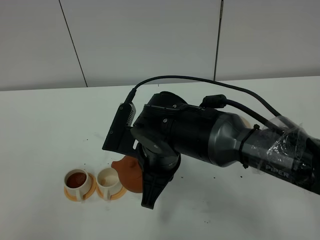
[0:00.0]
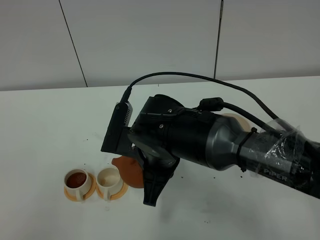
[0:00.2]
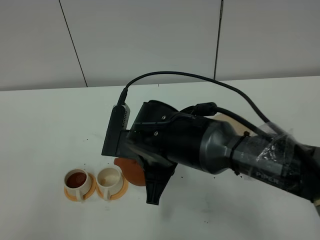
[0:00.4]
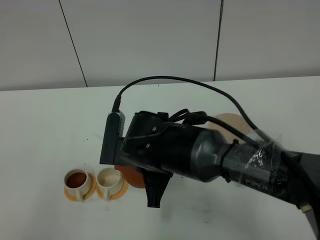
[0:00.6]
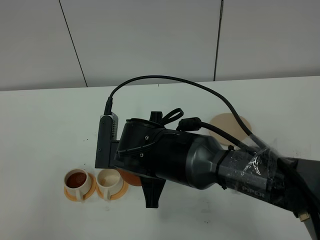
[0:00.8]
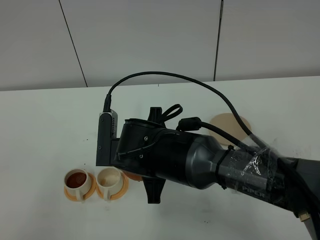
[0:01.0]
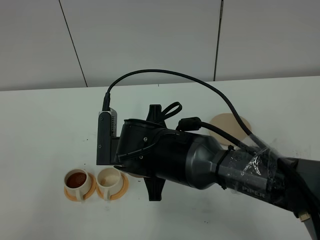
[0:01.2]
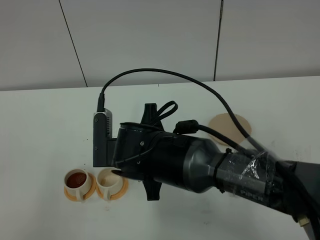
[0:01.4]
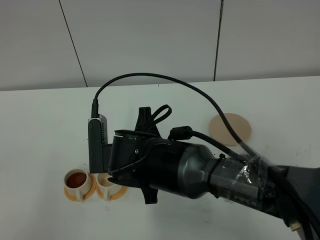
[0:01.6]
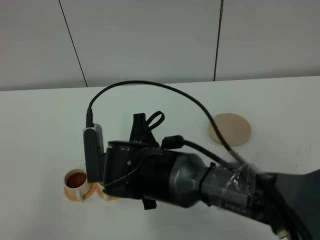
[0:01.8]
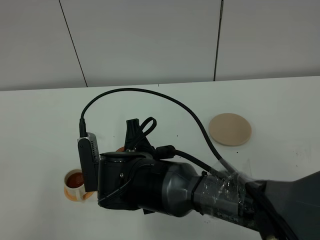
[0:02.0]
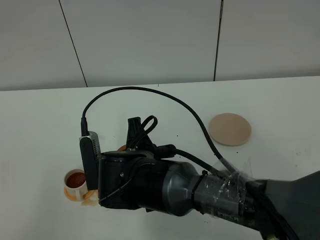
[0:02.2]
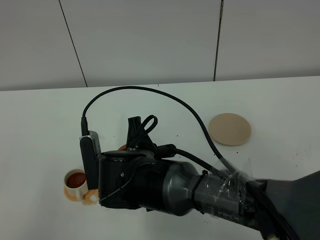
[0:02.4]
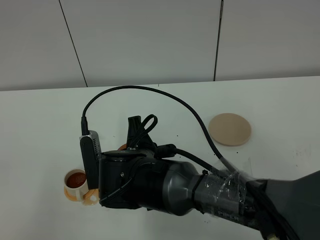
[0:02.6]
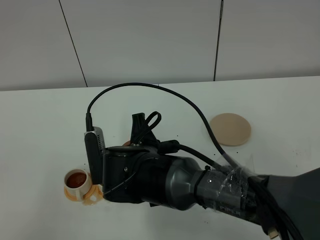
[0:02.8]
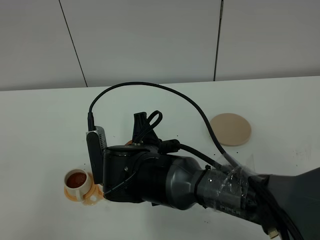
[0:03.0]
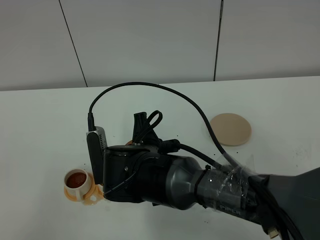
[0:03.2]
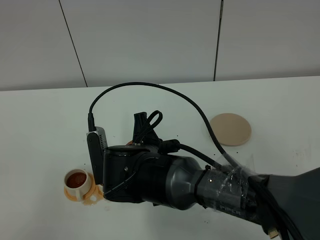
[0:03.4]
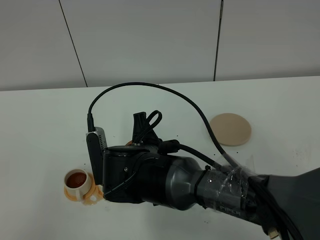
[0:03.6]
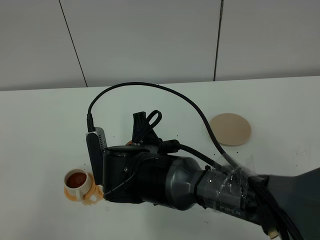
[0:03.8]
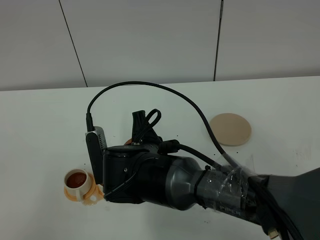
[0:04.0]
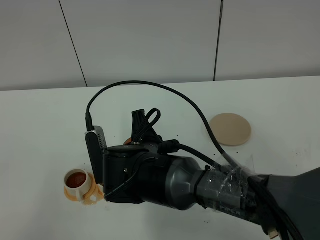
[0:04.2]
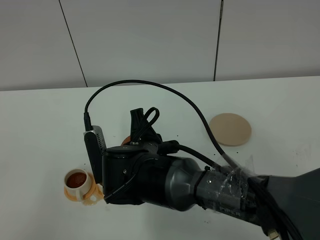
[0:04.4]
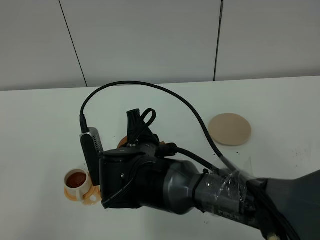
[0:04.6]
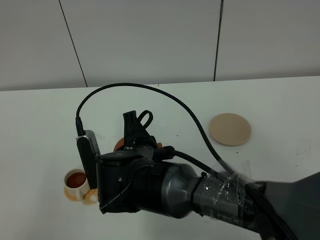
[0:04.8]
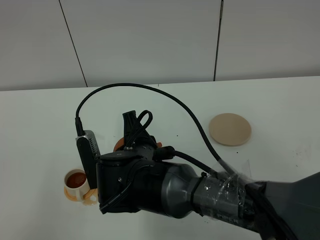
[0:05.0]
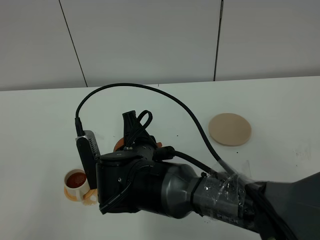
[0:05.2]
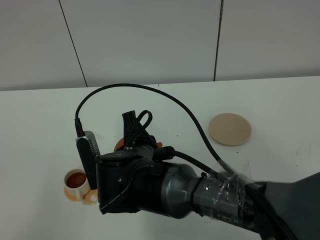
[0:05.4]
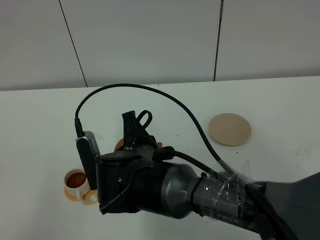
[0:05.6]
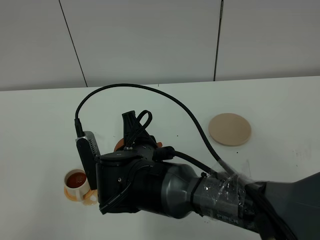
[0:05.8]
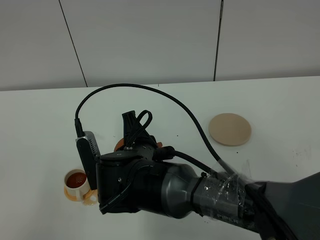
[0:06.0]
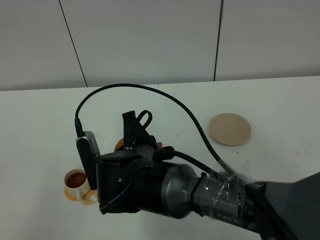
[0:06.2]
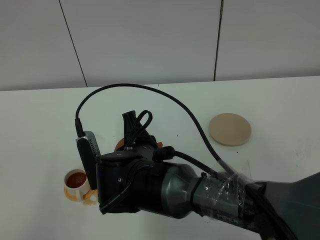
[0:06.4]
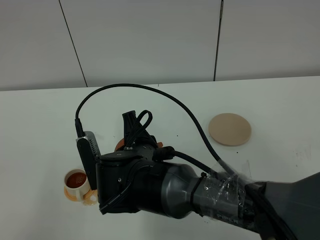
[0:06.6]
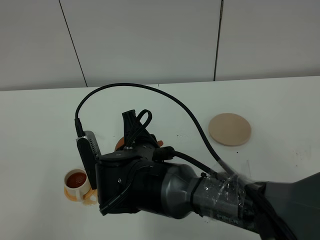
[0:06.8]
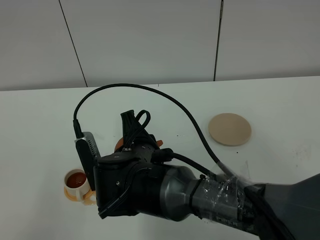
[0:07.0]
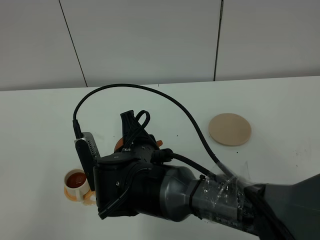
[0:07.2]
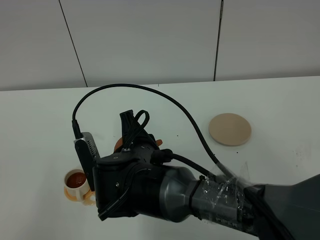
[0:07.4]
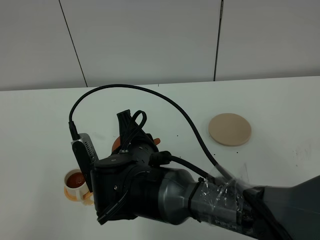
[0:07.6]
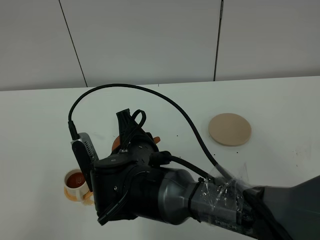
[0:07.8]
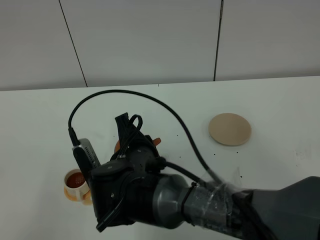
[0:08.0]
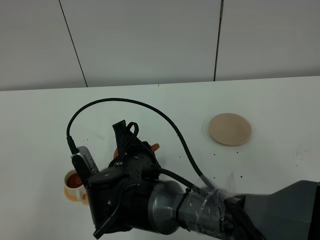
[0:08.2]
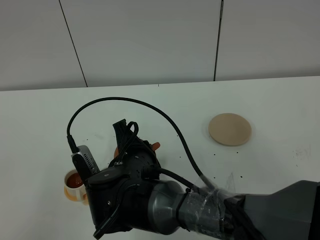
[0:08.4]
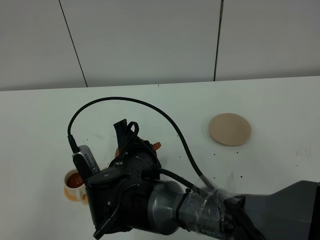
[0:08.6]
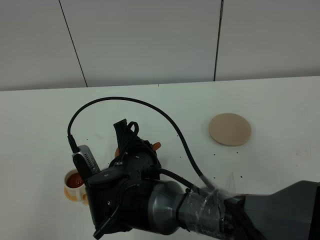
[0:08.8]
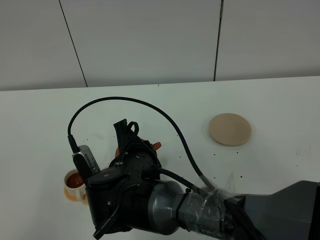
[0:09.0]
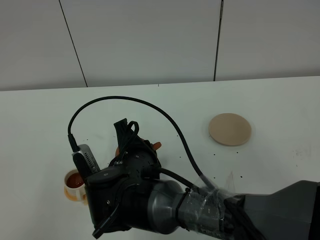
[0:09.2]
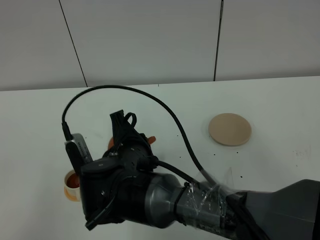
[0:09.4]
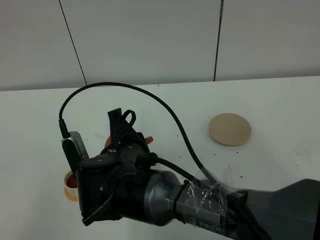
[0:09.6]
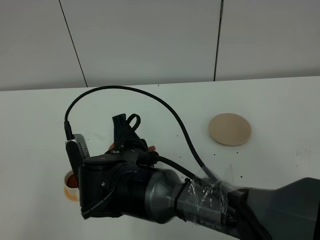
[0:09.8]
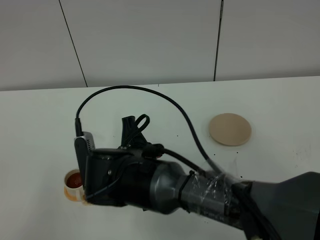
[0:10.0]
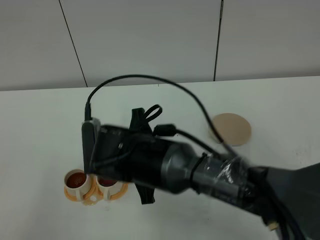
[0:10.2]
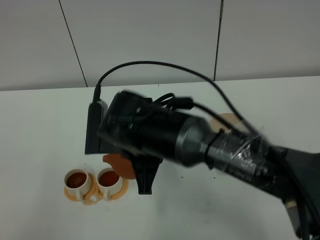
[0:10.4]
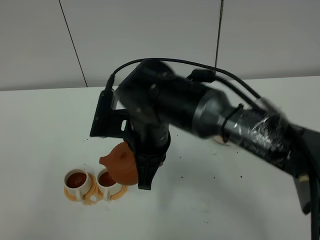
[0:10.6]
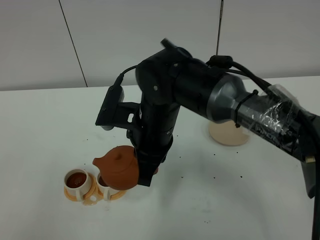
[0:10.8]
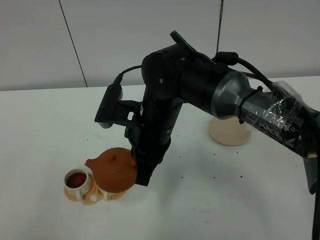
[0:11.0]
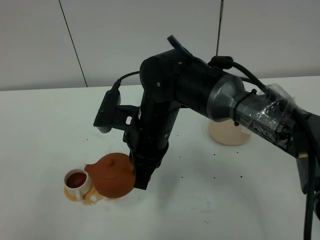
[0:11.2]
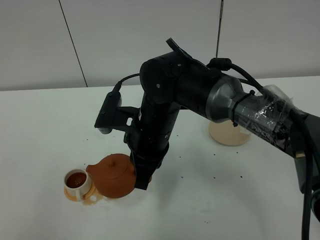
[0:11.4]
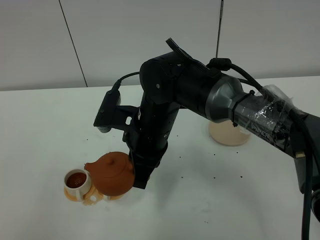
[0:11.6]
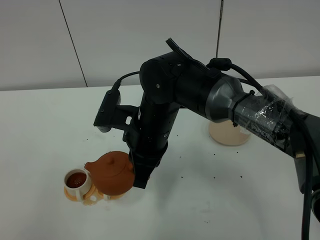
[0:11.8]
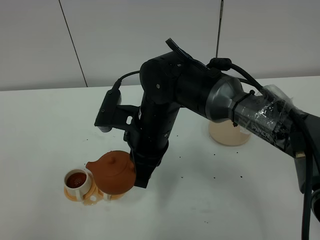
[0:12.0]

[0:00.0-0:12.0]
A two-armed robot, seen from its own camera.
Task of the whole recording: grasp the brown teapot and pour the tea into the two white teacups one by one, put the brown teapot back in its original place.
Step, 0:00.0 to 0:10.6: Pour tea into the teacup with the right gripper.
0:01.6 to 0:03.0: The grippers make only small movements.
0:03.0 to 0:04.4: Both grippers stay about where they are.
0:04.4 to 0:06.0: Neither gripper changes place.
0:06.0 to 0:07.6: Neither gripper changes place.
0:07.6 to 0:09.0: The grippers make only small movements.
0:09.0 to 0:10.4: The right gripper goes approximately 5 cm upward.

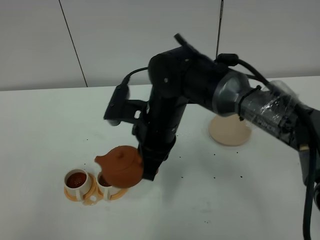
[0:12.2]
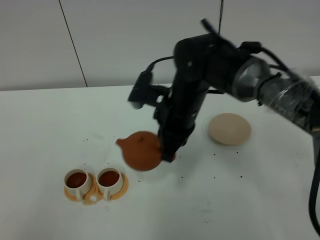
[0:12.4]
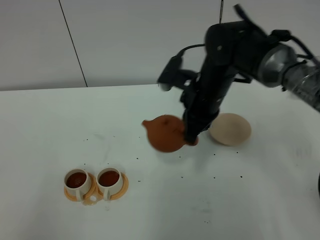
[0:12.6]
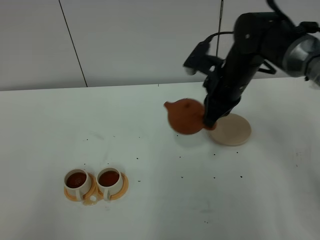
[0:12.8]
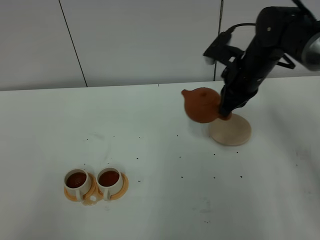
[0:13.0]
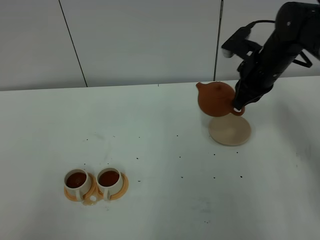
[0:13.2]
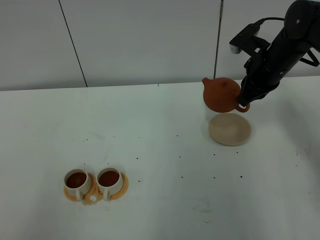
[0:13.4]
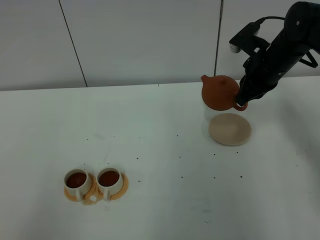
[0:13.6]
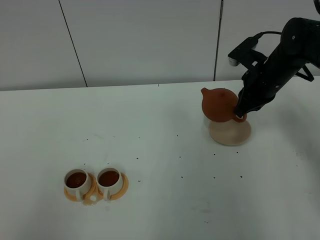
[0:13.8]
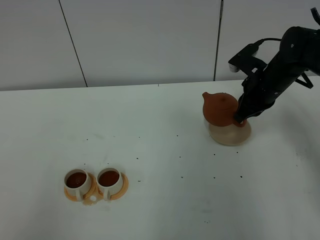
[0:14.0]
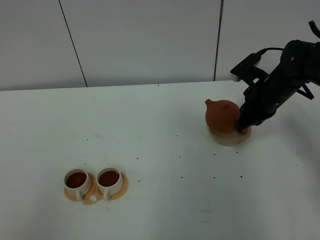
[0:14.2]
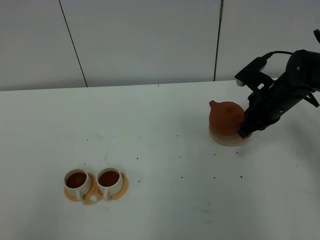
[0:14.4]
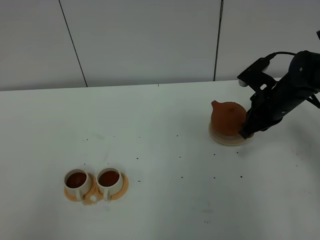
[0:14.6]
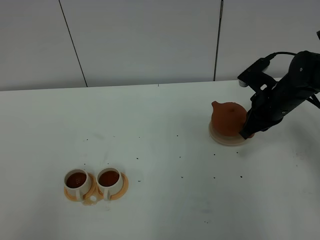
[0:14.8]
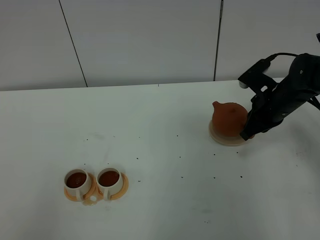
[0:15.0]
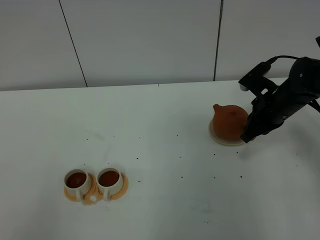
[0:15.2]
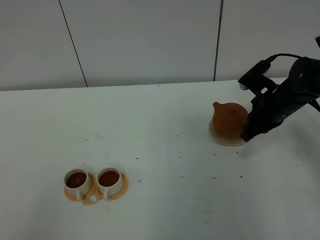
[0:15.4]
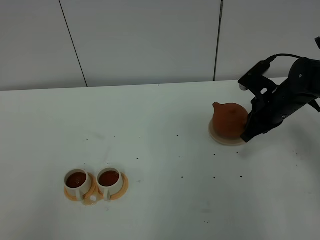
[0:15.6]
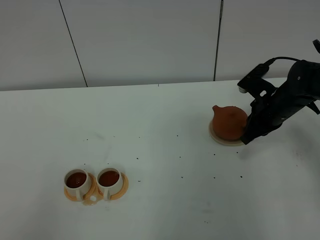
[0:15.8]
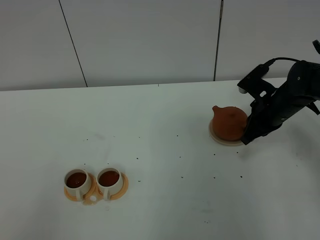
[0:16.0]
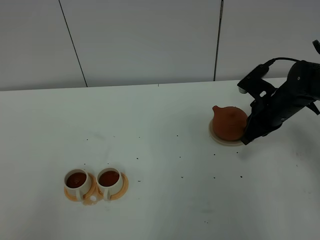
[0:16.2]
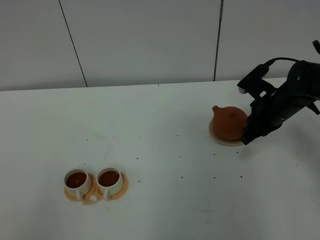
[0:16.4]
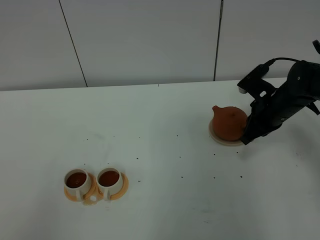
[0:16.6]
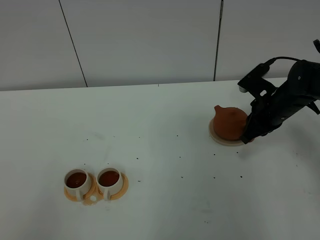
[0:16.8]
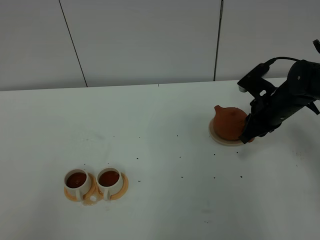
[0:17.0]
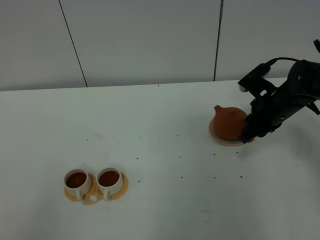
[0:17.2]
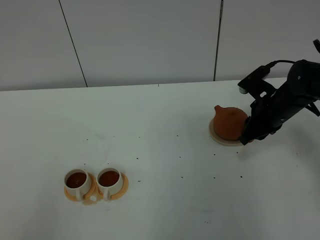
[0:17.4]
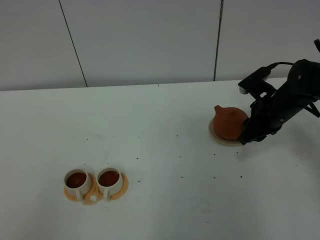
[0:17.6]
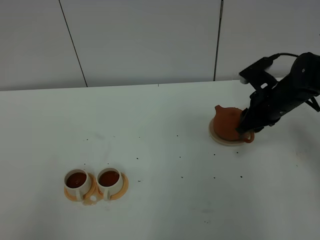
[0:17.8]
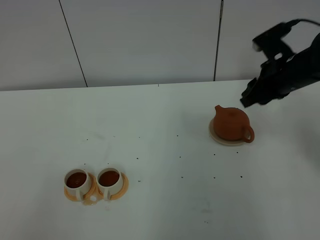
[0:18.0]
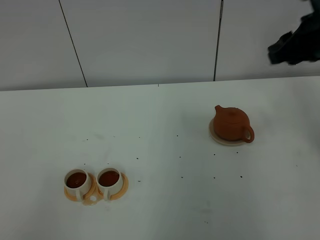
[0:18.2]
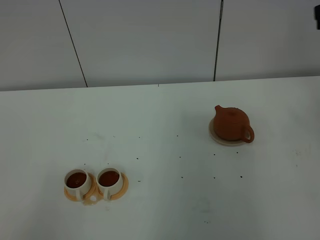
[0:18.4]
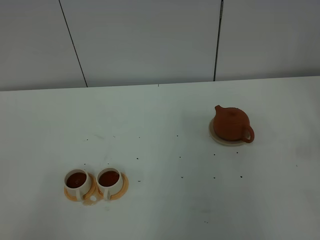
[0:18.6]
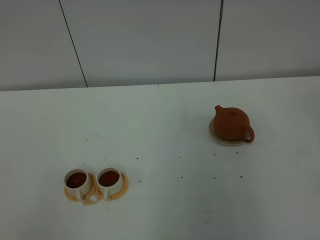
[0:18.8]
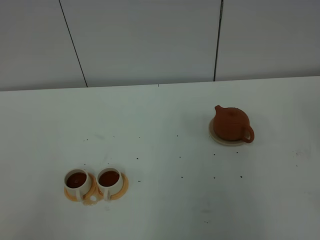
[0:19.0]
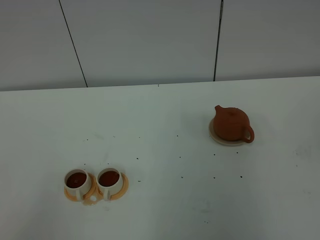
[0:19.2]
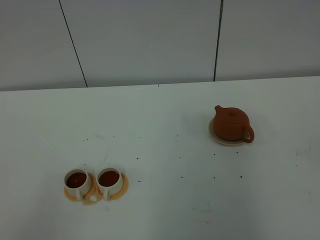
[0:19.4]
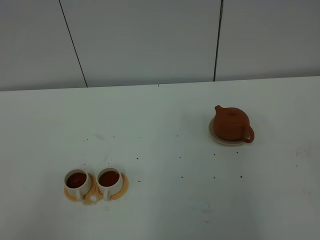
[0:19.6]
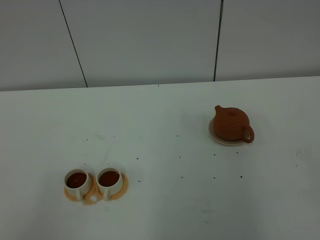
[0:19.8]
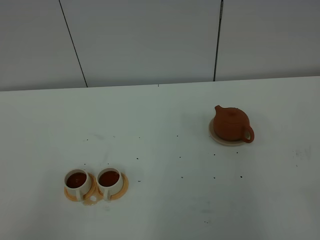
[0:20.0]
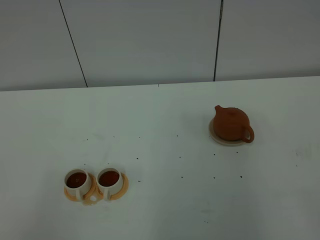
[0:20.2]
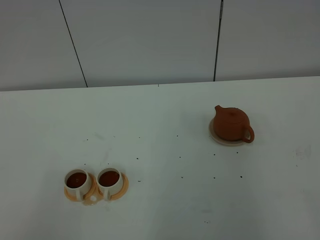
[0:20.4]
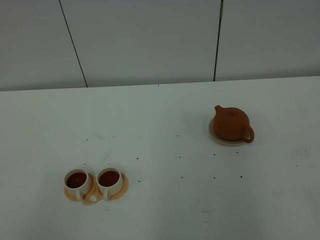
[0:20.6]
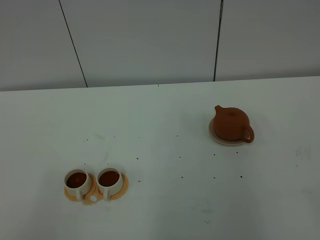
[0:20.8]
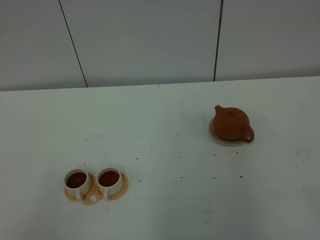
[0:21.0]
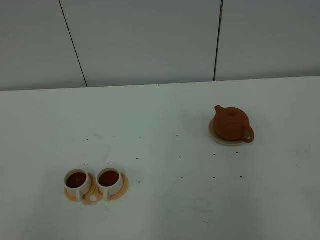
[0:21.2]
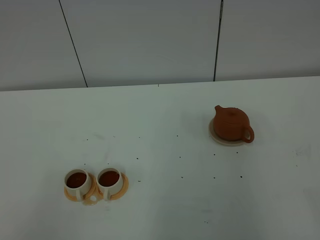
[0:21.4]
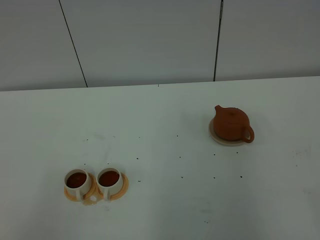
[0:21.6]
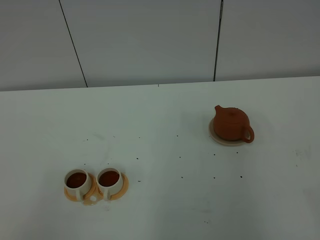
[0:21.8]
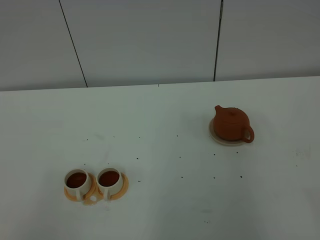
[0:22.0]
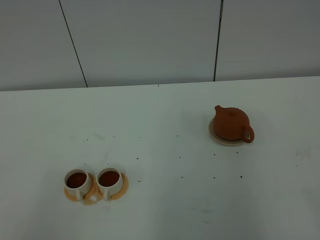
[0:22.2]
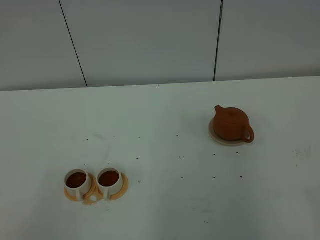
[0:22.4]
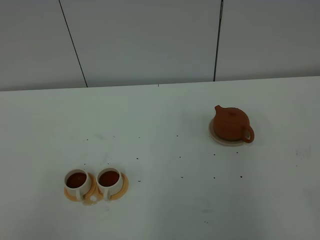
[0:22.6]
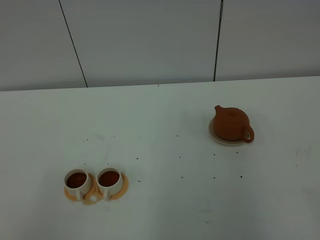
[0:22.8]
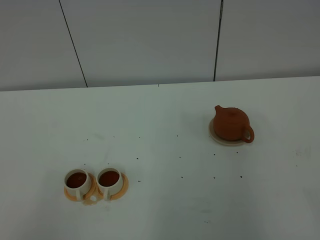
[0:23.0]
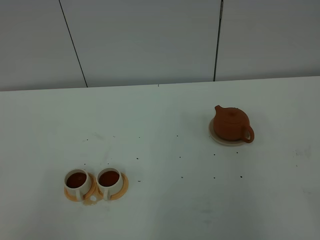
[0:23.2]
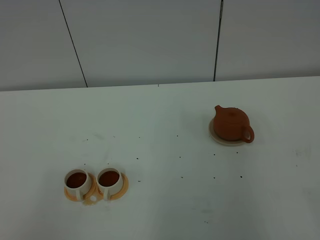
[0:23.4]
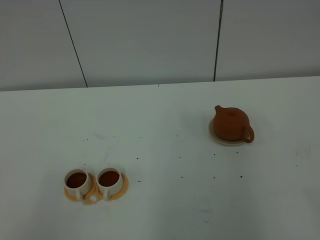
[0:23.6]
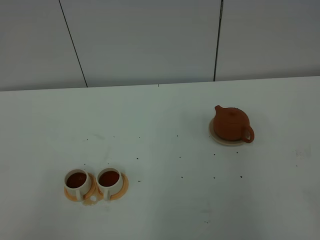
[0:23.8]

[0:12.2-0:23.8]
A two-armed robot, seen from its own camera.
Task of the whole recording: grasp the brown teapot and pour the tea into the two white teacups one by one, put the brown teapot back in its original place.
0:12.2 to 0:13.6: The right gripper is displaced to the right and forward by some 25 cm.
0:13.6 to 0:15.0: The right gripper heads downward, covering roughly 5 cm.
0:15.0 to 0:16.6: The two grippers keep their place.
0:16.6 to 0:18.0: The right gripper travels upward by approximately 10 cm, and opens up.
0:18.0 to 0:19.4: The right gripper goes roughly 40 cm backward, and closes its fingers.
0:21.0 to 0:23.8: Both grippers stay about where they are.
